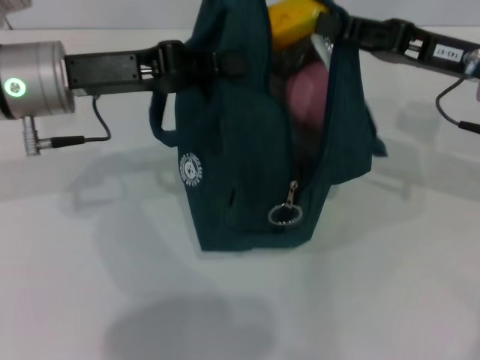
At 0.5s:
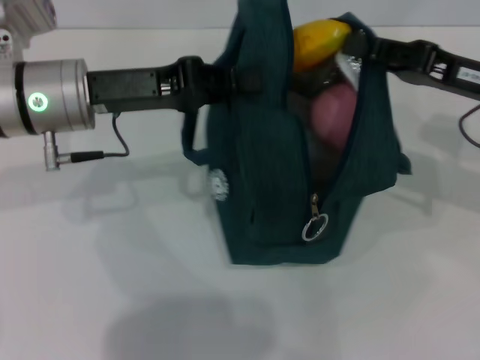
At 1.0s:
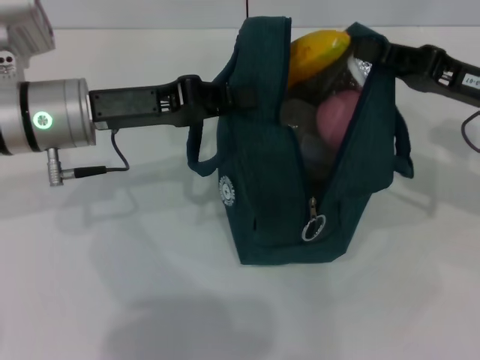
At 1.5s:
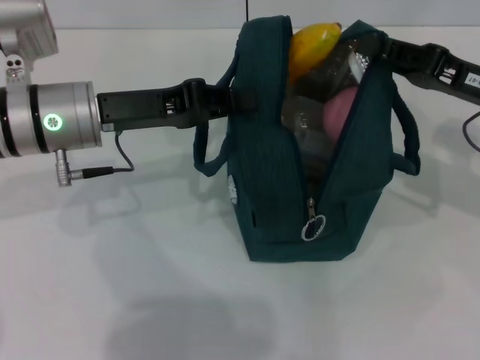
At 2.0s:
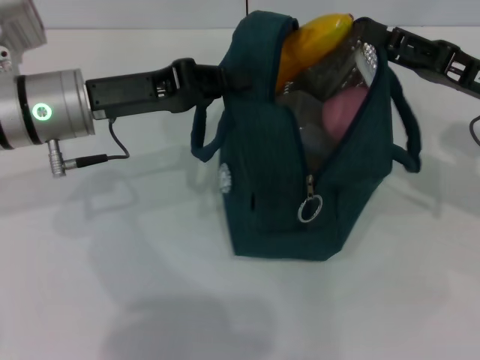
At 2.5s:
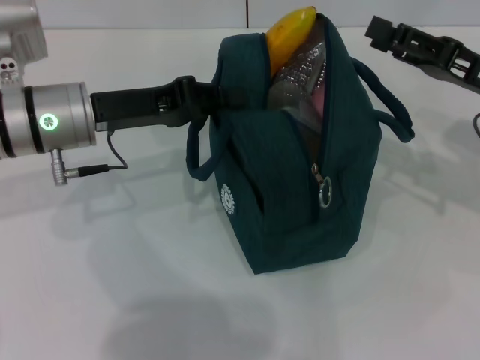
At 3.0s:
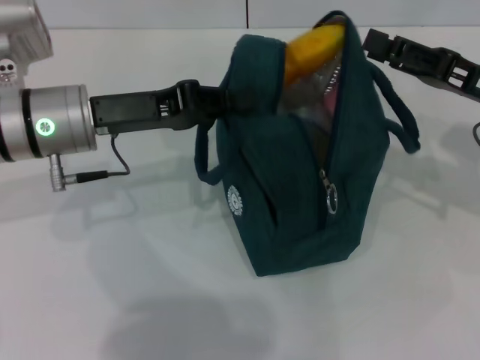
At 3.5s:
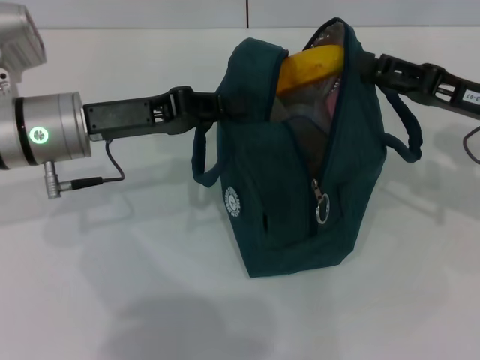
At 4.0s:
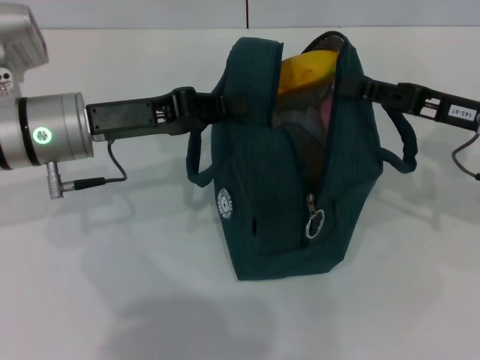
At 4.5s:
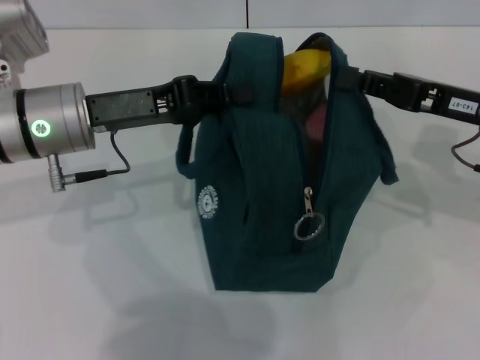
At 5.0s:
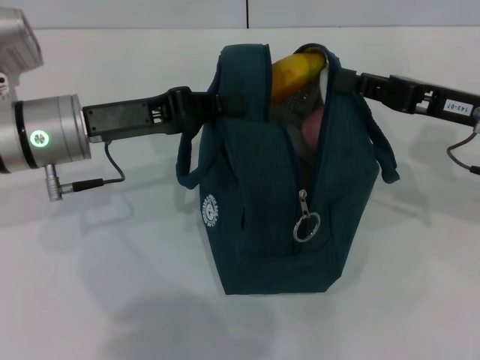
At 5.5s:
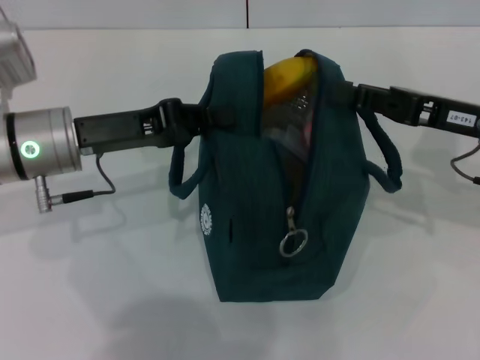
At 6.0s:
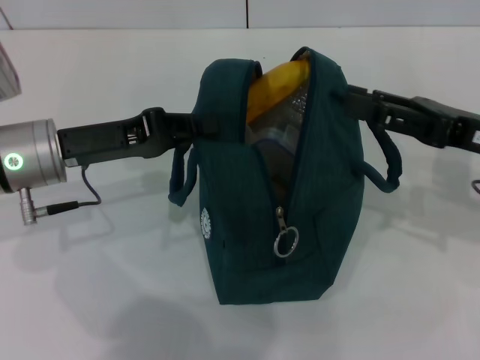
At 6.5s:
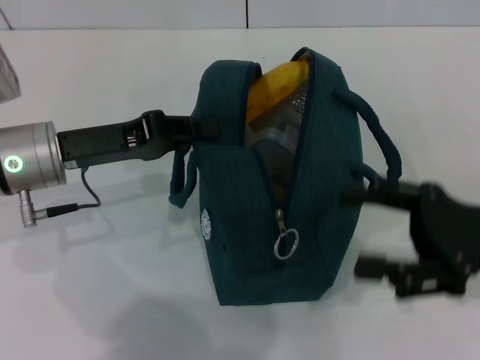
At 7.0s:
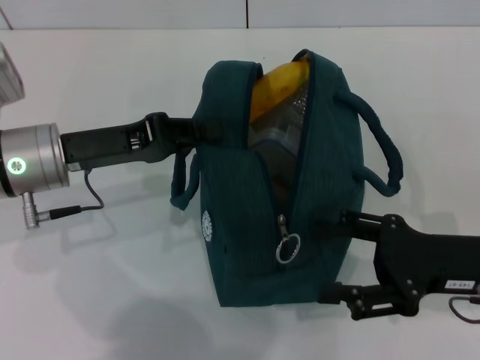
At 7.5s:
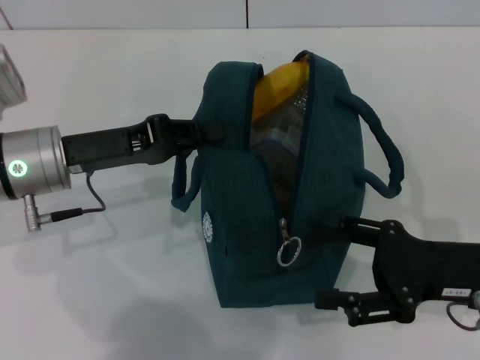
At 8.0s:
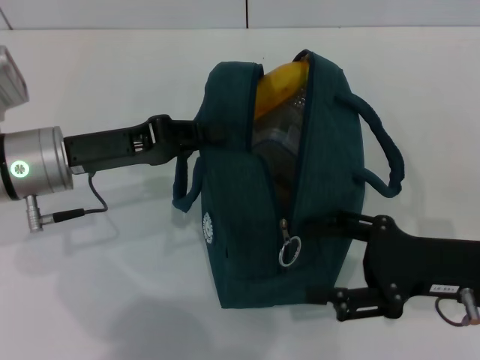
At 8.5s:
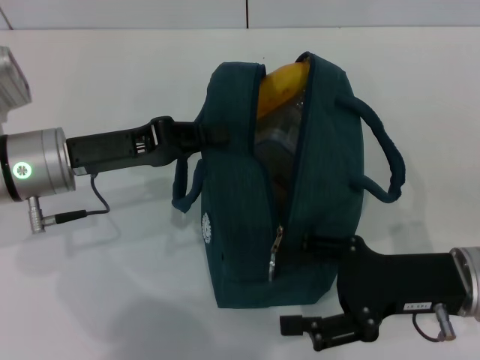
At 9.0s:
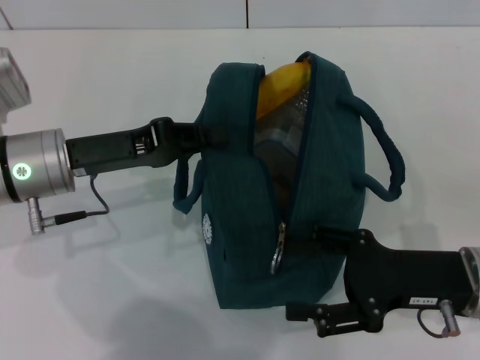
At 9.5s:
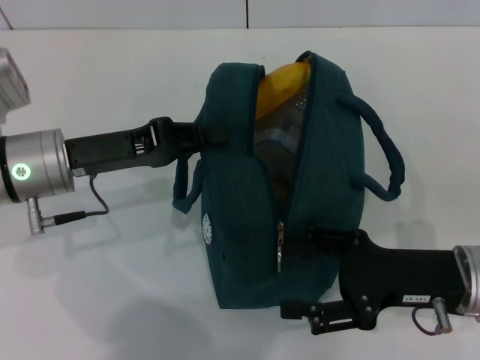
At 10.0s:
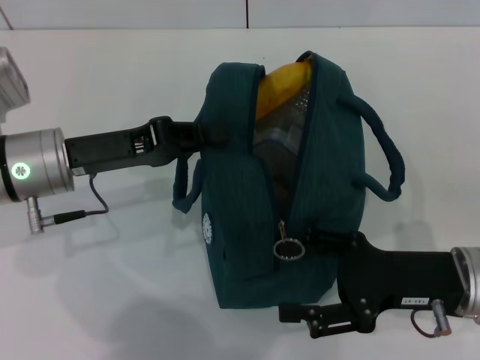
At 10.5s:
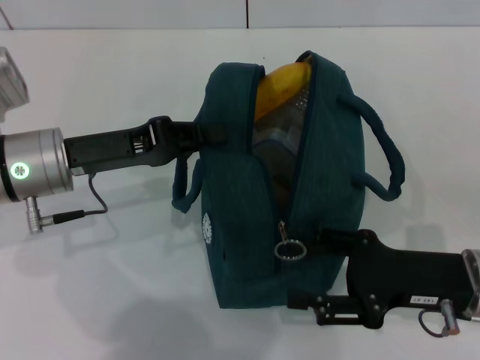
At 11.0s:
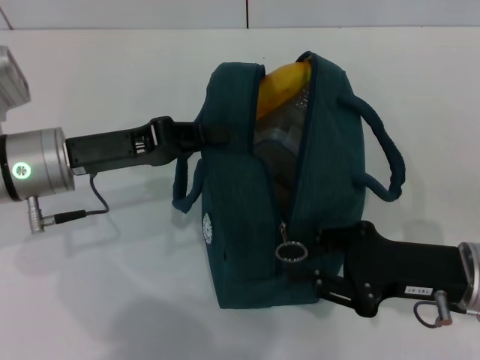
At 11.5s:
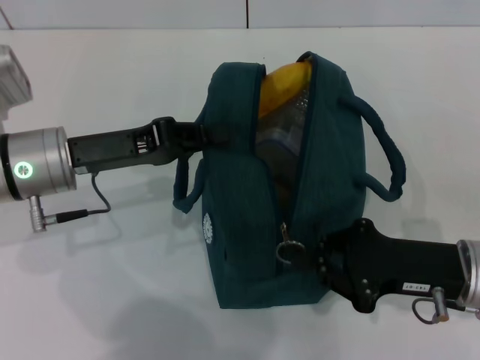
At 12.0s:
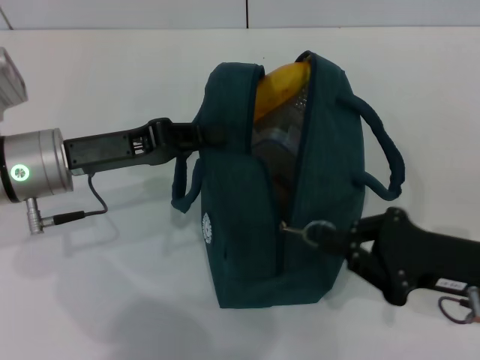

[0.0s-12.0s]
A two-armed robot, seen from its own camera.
Step, 0.0s to 2.0s: Hold the lunch bag with your right hand.
4.0s to 6.0s: The right gripper closes, then opens again.
6.0s to 8.0s: The right gripper travels backward and downward by roughly 10 cm, and opens.
8.0s to 10.0s: There are only small adjustments of the grippers.
10.0s to 12.0s: The right gripper closes up.

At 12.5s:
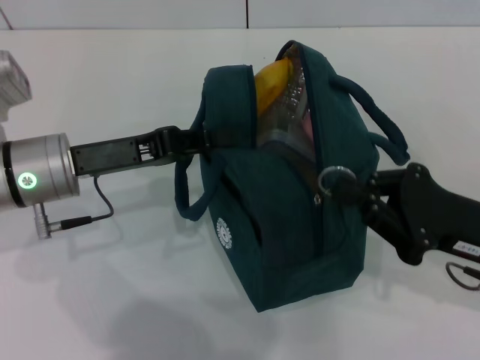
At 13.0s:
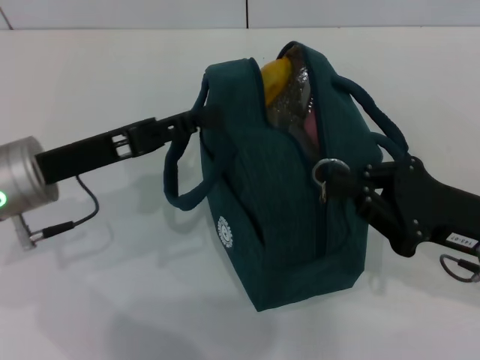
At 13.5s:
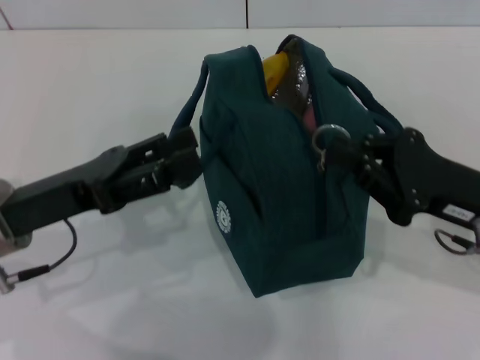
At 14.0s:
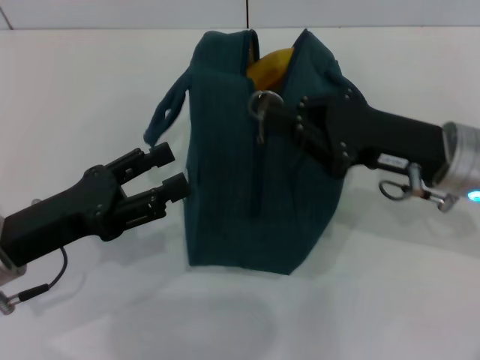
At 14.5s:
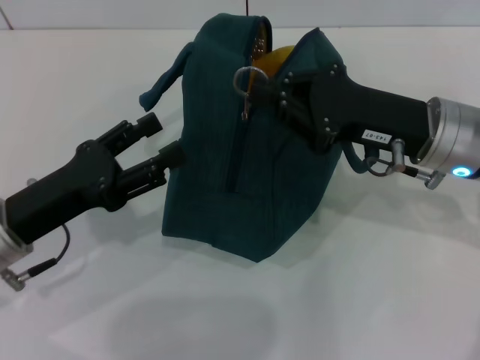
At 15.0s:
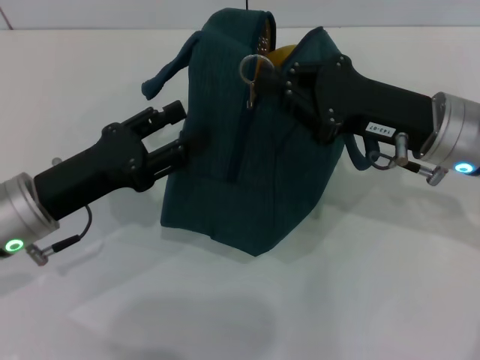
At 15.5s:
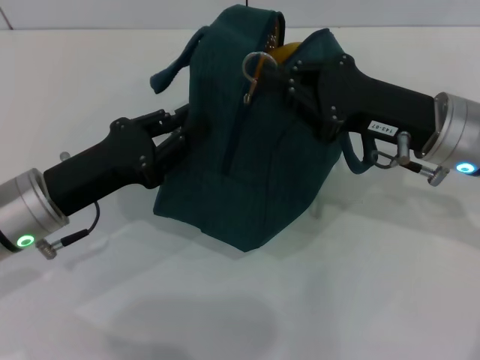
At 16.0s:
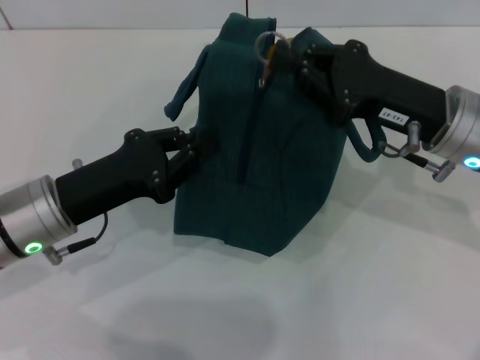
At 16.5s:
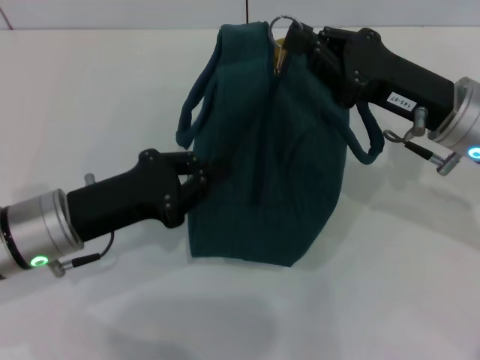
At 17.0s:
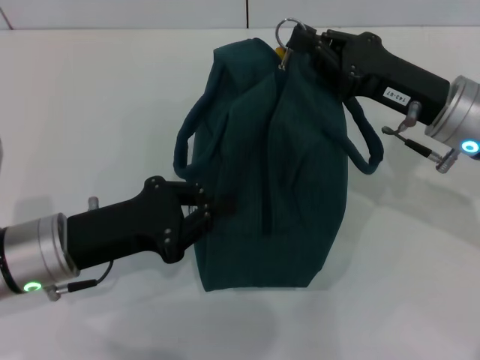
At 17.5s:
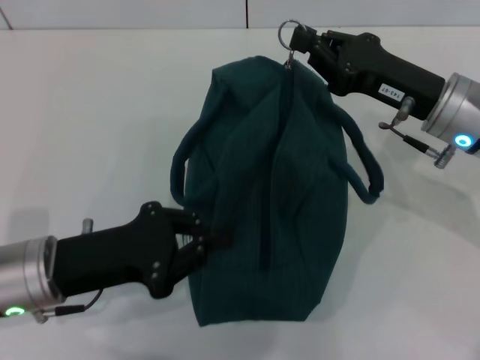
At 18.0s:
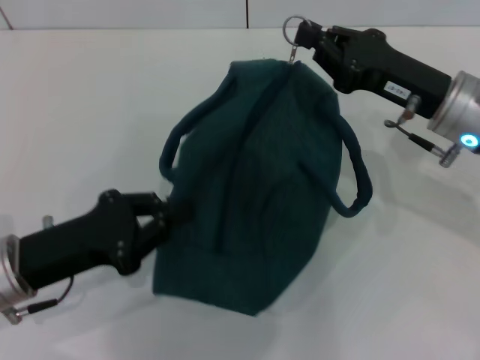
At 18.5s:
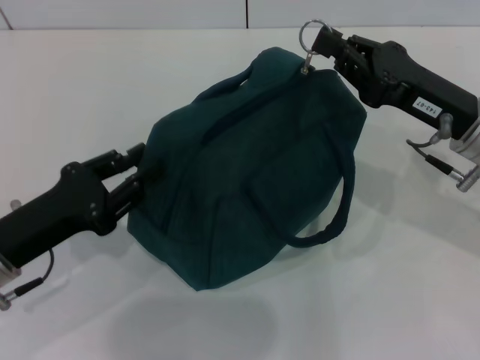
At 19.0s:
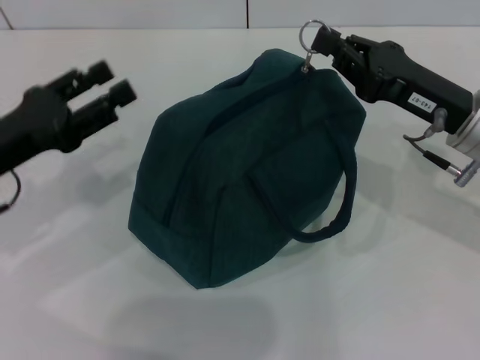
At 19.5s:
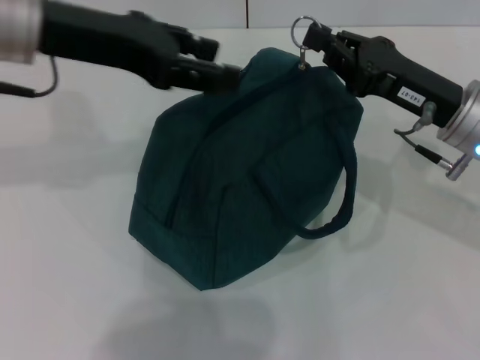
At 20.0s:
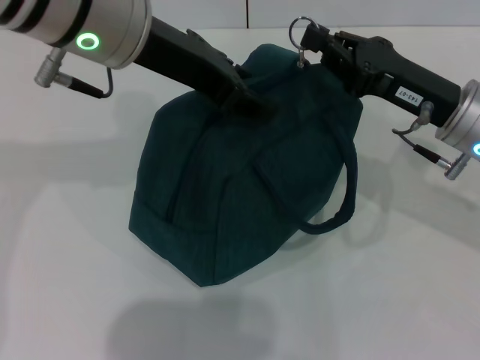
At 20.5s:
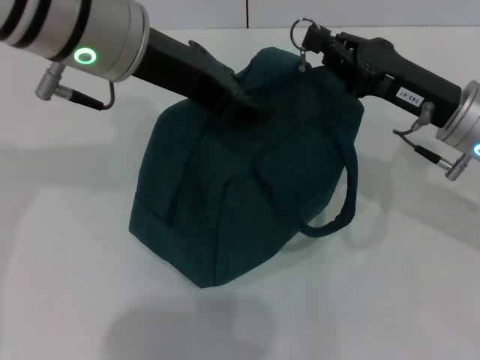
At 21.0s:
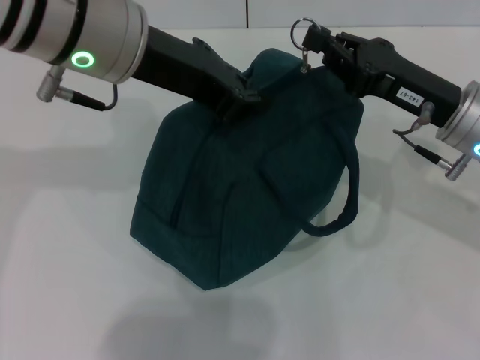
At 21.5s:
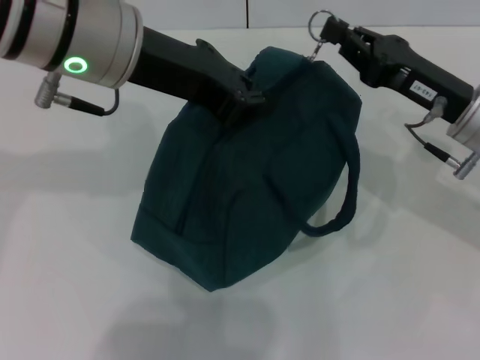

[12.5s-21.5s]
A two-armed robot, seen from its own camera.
12.5s to 14.5s: The left gripper moves backward, approximately 5 cm, and opens its fingers; the right gripper is displaced forward and to the left by about 10 cm.
14.5s to 17.0s: The left gripper closes its fingers.
17.0s to 19.5s: The left gripper is displaced upward and forward by some 20 cm, and opens its fingers.
19.5s to 21.5s: The left gripper goes roughly 5 cm to the right, and closes its fingers.

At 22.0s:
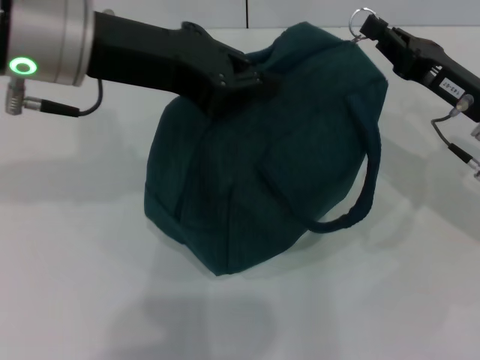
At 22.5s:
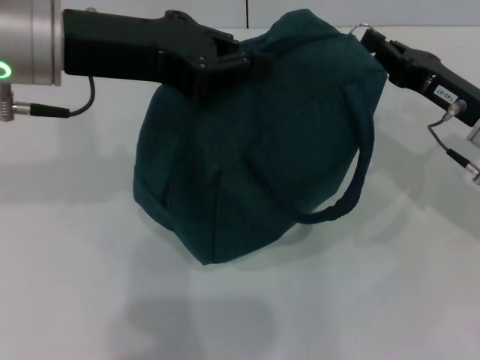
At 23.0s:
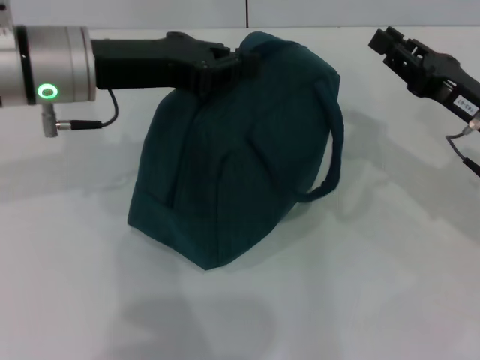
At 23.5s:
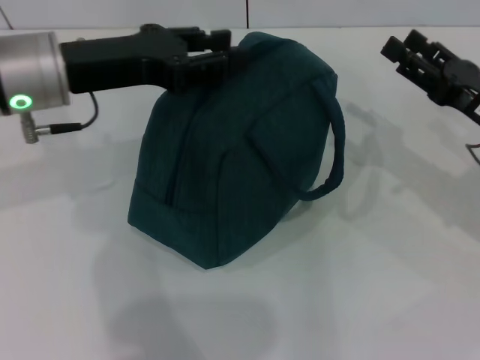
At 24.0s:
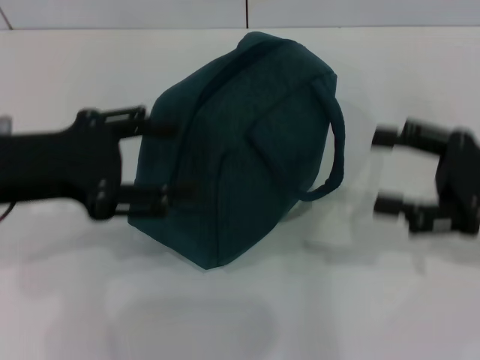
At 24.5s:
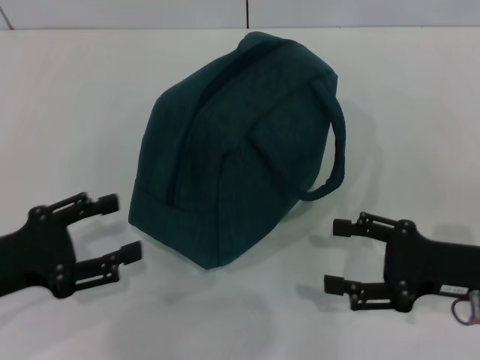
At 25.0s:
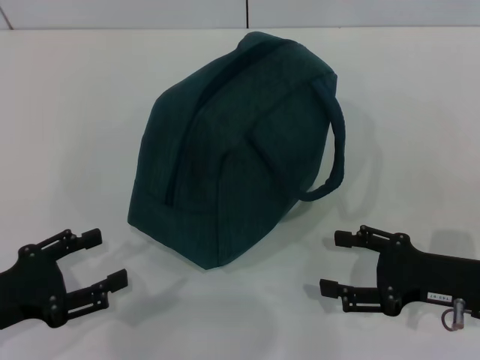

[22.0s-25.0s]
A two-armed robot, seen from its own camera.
22.0s to 23.5s: The left gripper goes about 10 cm downward; the right gripper opens up.
23.5s to 25.0s: The left gripper travels backward, downward and to the left by roughly 25 cm, and opens; the right gripper goes some 10 cm backward and downward, and opens up.

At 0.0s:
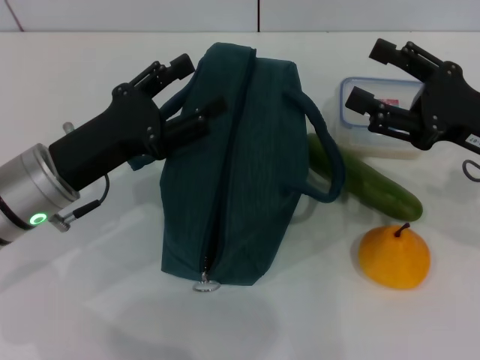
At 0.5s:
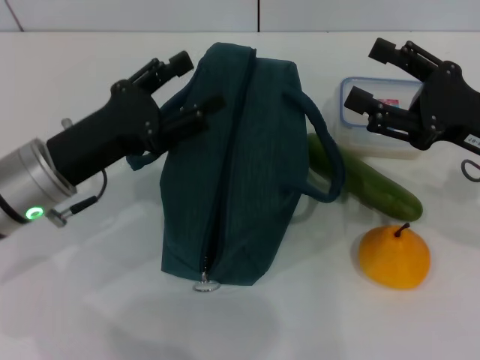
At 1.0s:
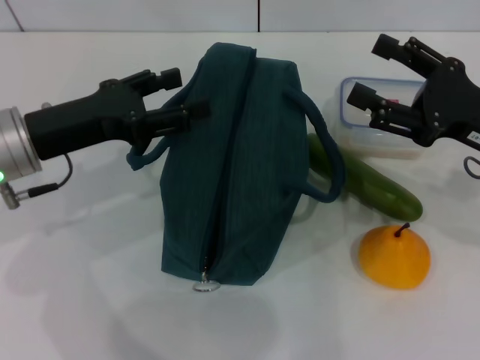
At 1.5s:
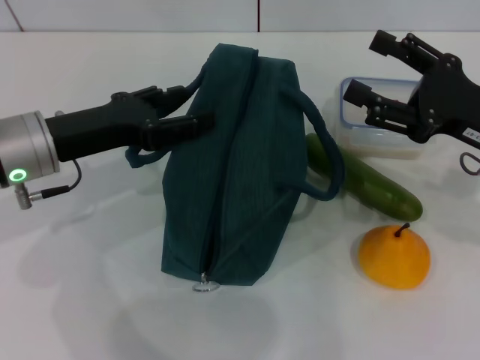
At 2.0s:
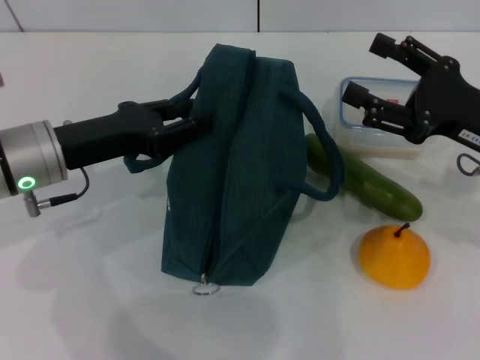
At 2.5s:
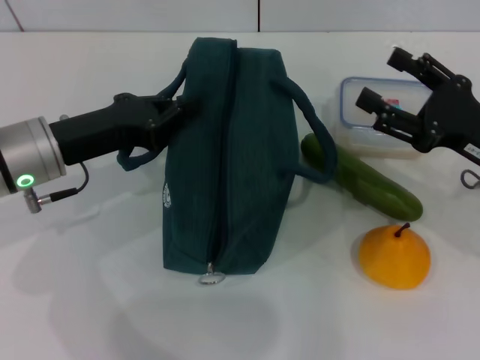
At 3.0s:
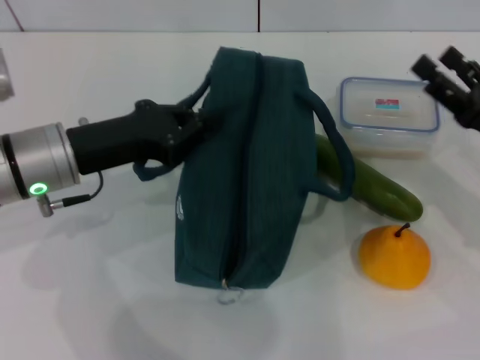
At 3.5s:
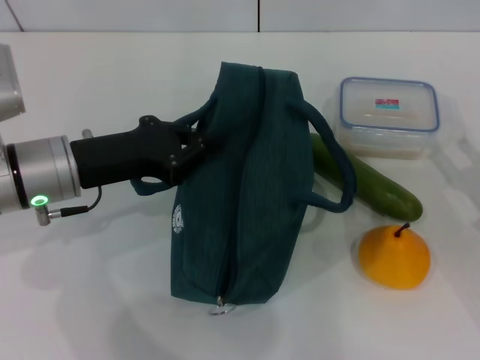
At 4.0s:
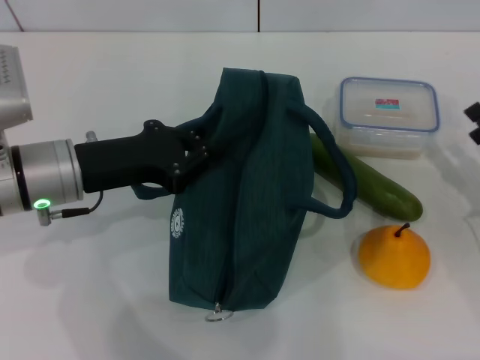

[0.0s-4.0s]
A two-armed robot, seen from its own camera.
Step, 0.0s to 2.5s: Hold the lunch bag with your left hand.
2.0s to 4.0s: The left gripper closes its fingers; the right gripper is displaced downward and to the right by approximately 10 cm.
